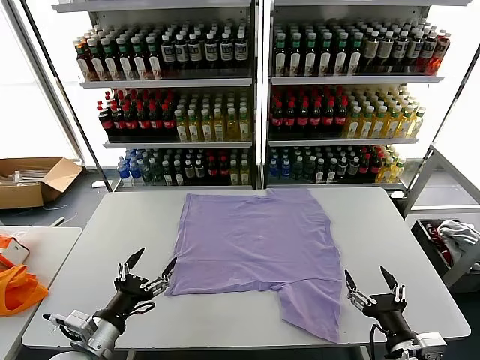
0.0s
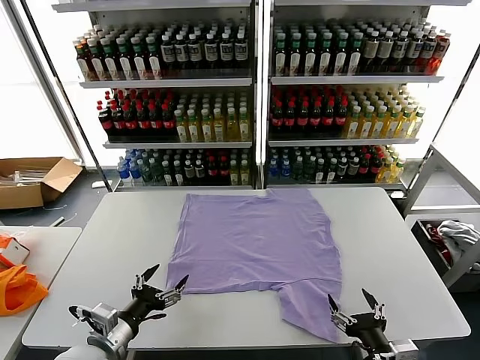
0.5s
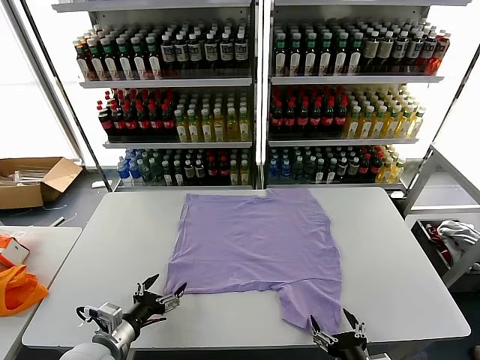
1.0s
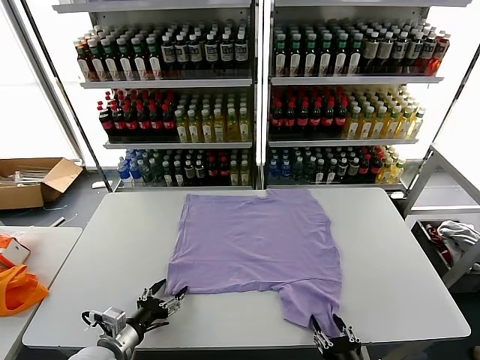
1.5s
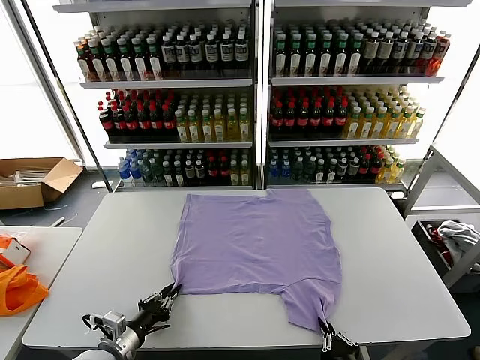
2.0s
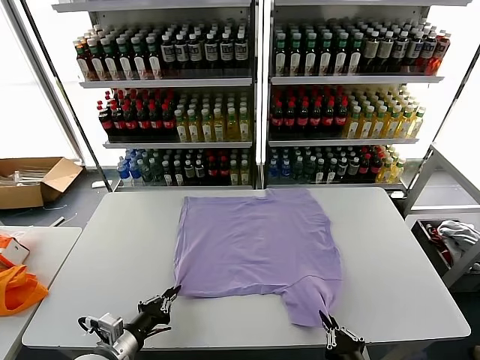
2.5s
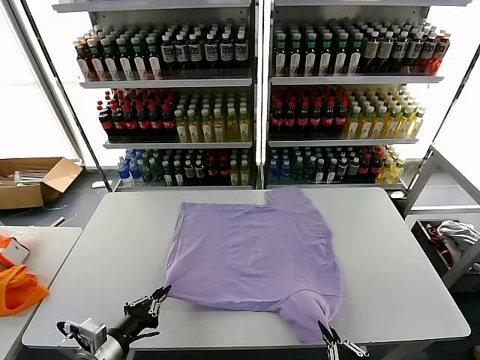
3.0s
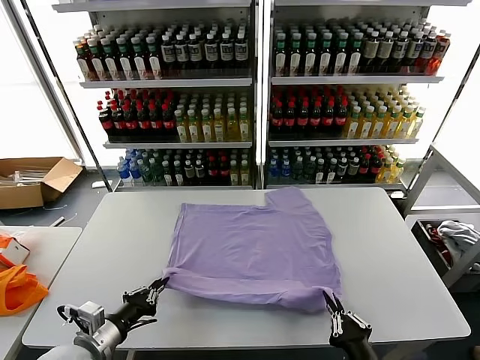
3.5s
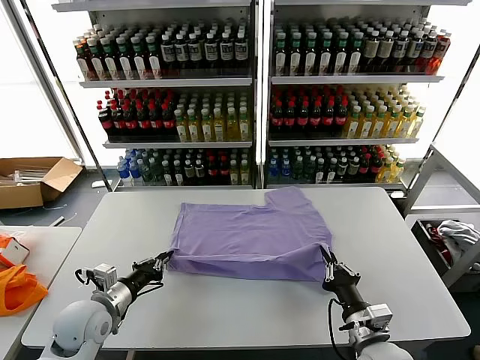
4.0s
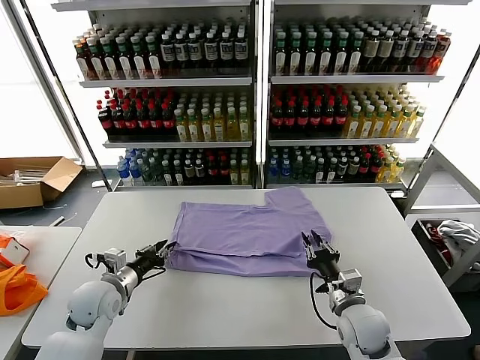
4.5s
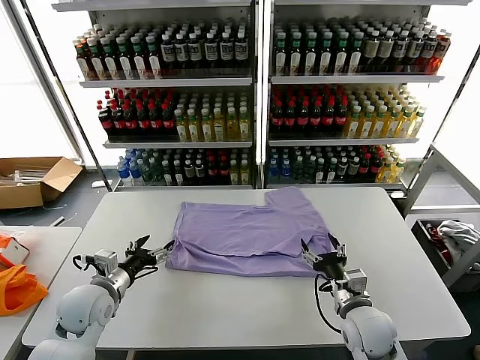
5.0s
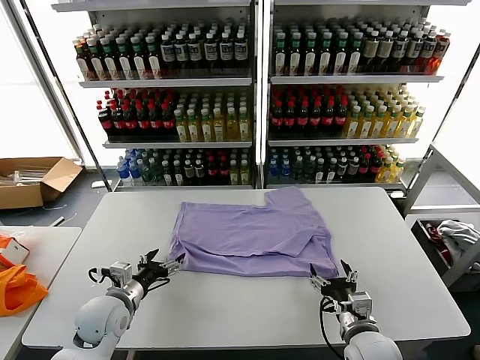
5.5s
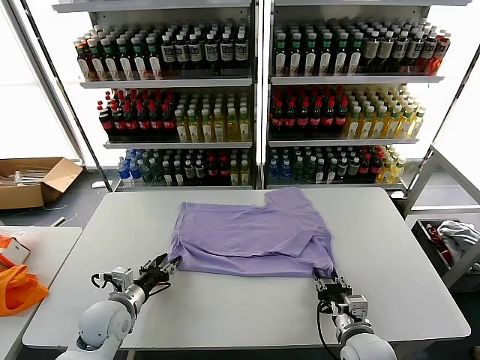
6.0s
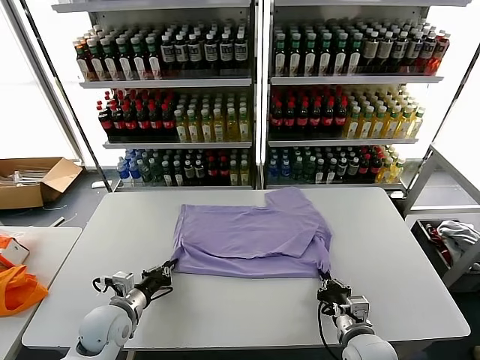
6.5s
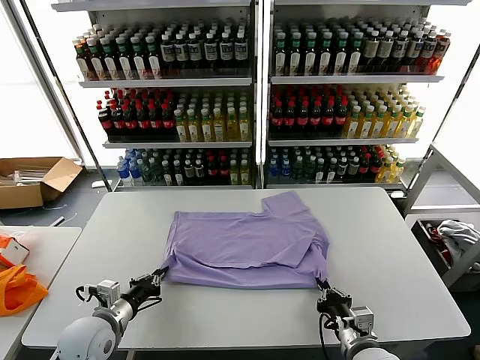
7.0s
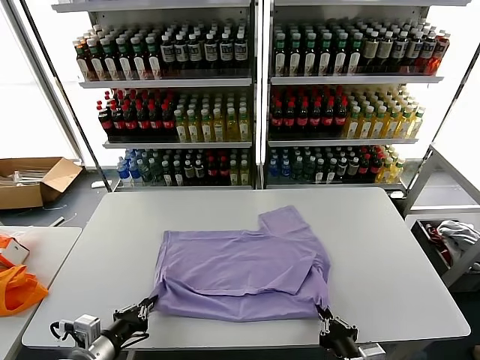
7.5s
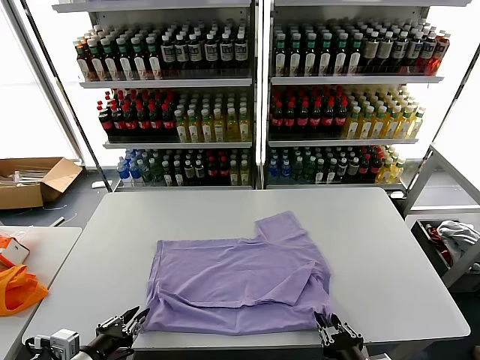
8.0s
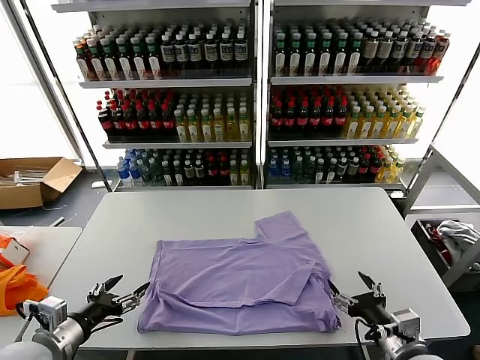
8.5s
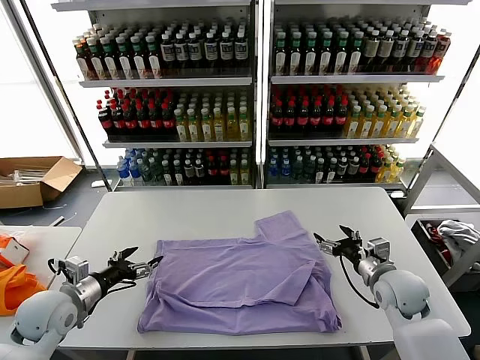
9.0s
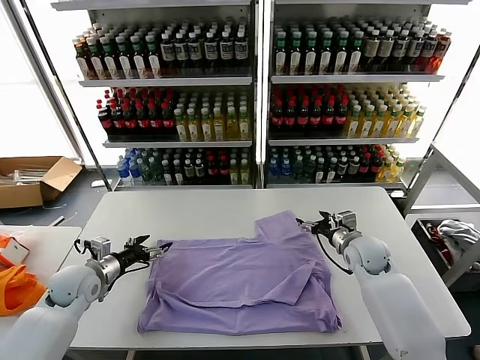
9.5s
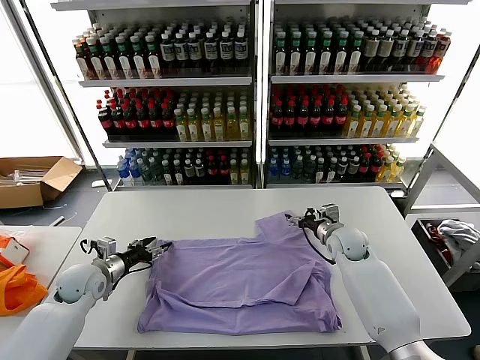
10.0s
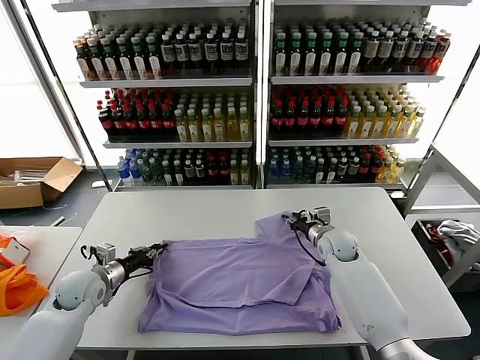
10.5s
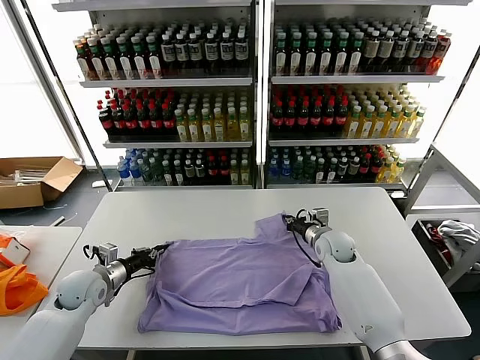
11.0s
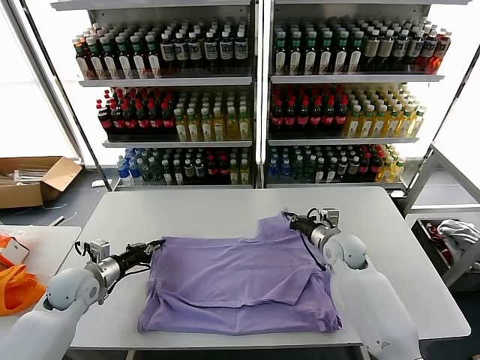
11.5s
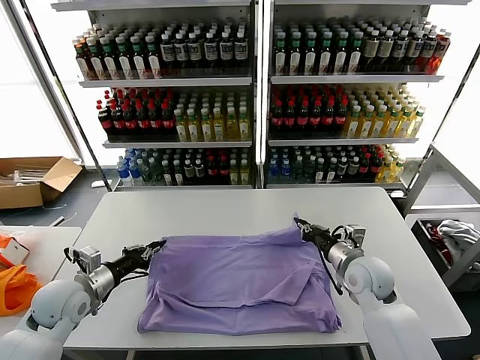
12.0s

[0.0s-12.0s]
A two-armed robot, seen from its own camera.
Task of the whole recording: fold and organize the clothes.
Step, 0.0s to 2.0s: use both grippers simultaneously to clamp the lower edge of the clothing fabric.
Step, 2.5s to 4.5s: use both grippers to drag the lower edge of the fabric forward and fold it over the upper edge.
Step, 5.0s to 8.0s: Drag the clothes downward with both gripper.
Step, 8.5s to 10.5s: use both grippers simultaneously to clamp the upper edge of the clothing fabric.
2.0s to 4.0s: The left gripper heads forward and upward, covering approximately 10 cm. The right gripper travels forward by about 15 cm.
4.0s to 6.0s: The right gripper opens and closes again; the left gripper moves roughly 5 cm, and opens.
6.0s to 8.0s: Both grippers travel together backward and upward, about 15 cm.
8.0s to 10.0s: The left gripper heads forward, covering approximately 25 cm, and opens; the right gripper is displaced forward by approximately 40 cm, and opens.
10.0s to 12.0s: The left gripper moves backward and upward, approximately 10 cm, and closes. The right gripper moves backward, approximately 15 cm, and closes its fingers.

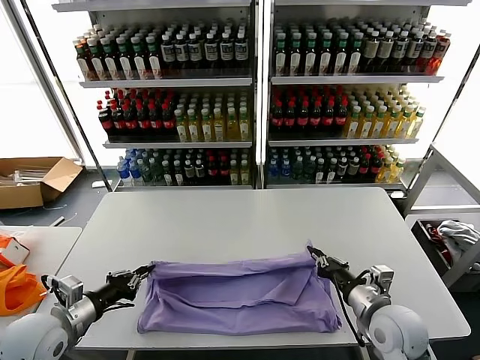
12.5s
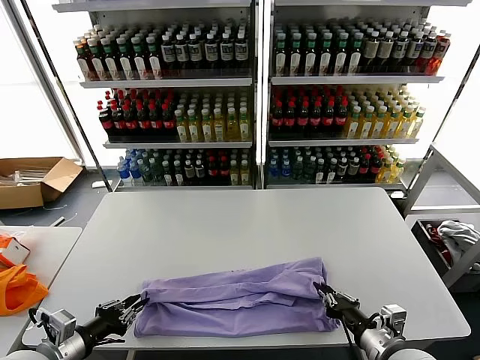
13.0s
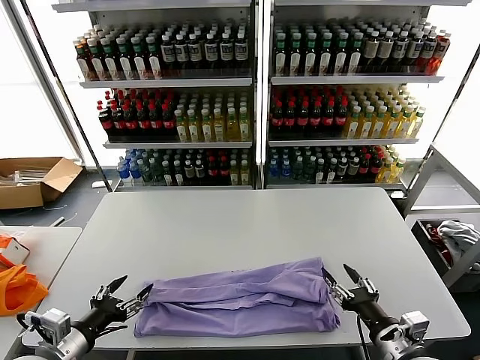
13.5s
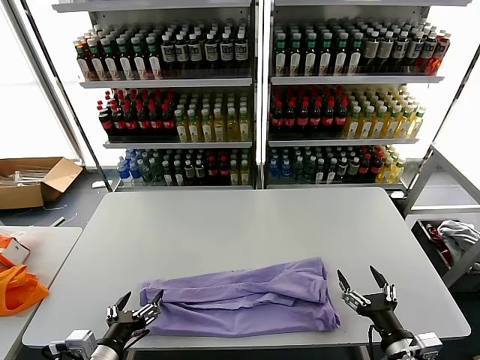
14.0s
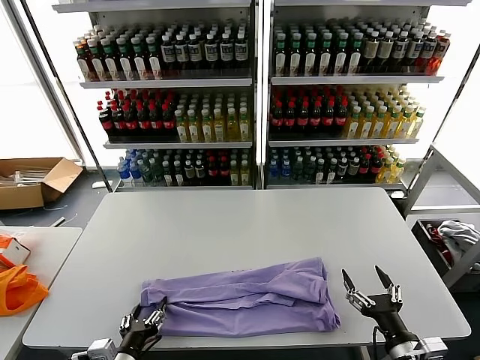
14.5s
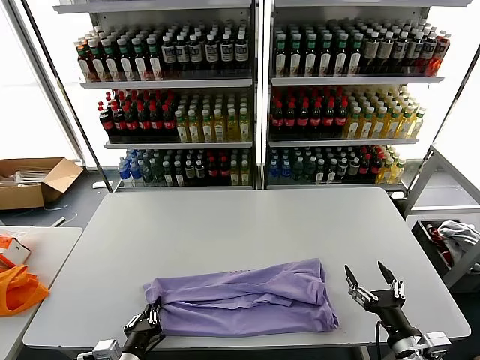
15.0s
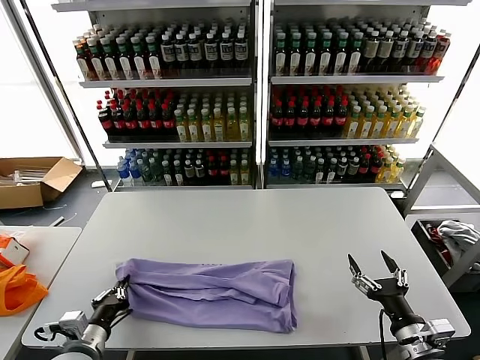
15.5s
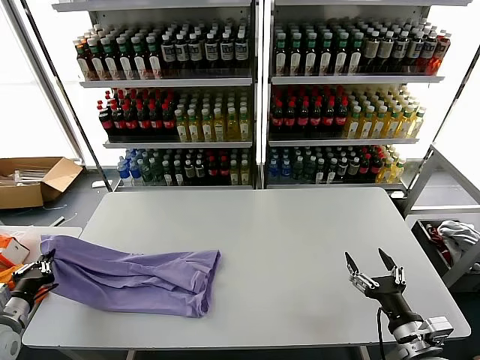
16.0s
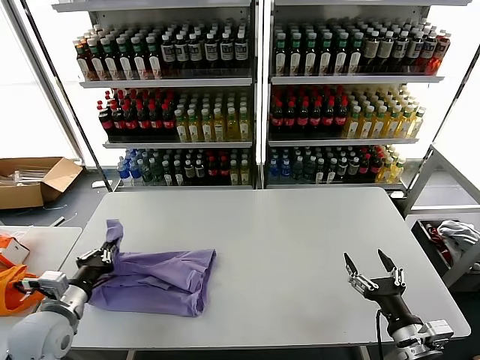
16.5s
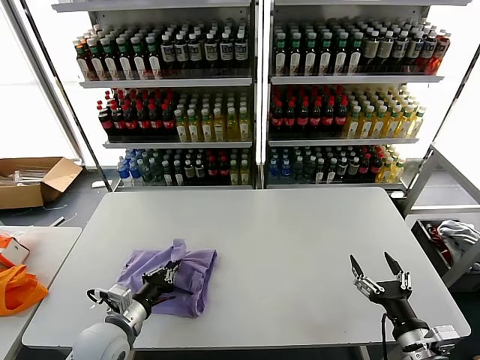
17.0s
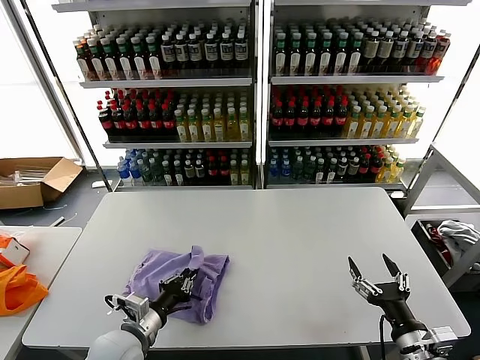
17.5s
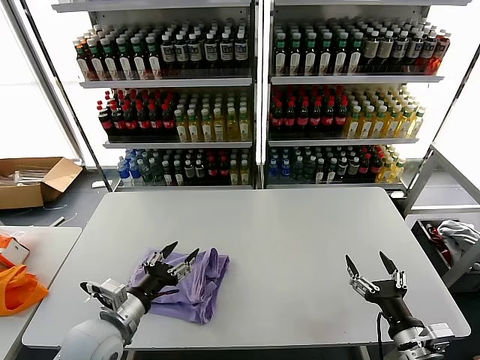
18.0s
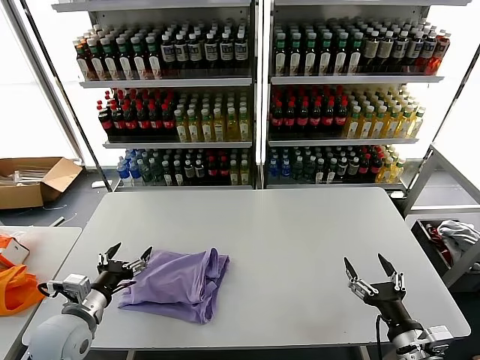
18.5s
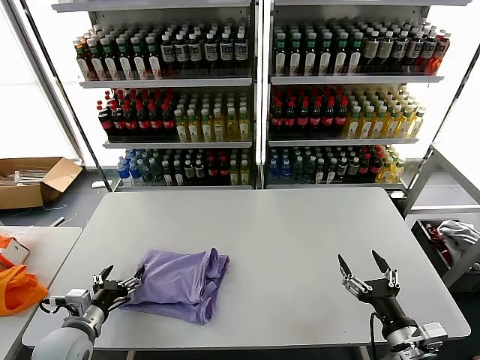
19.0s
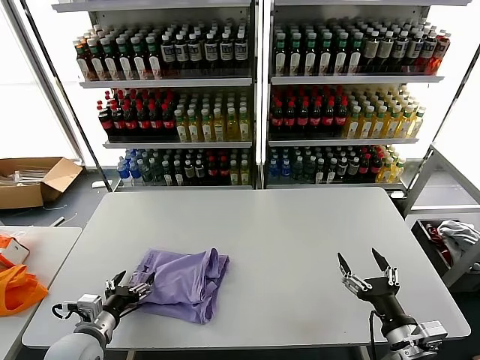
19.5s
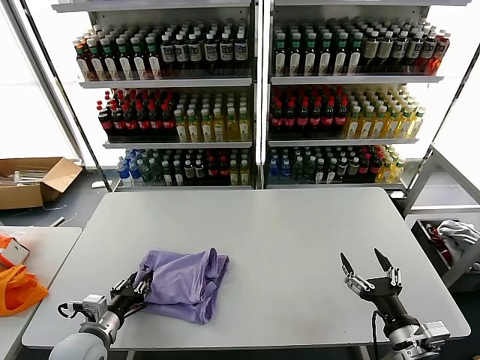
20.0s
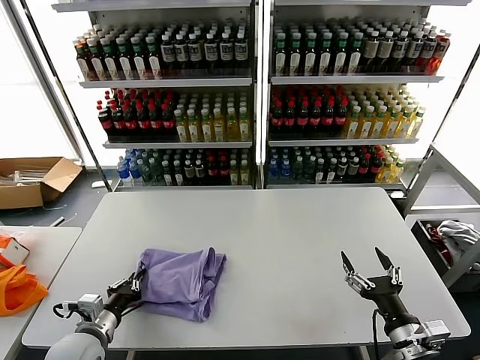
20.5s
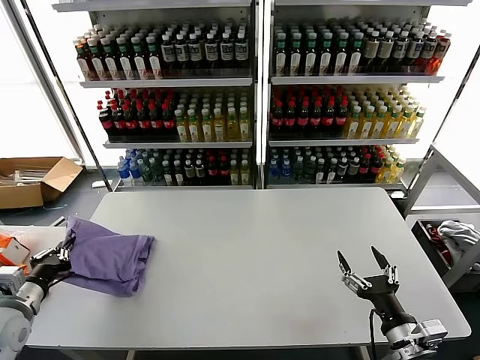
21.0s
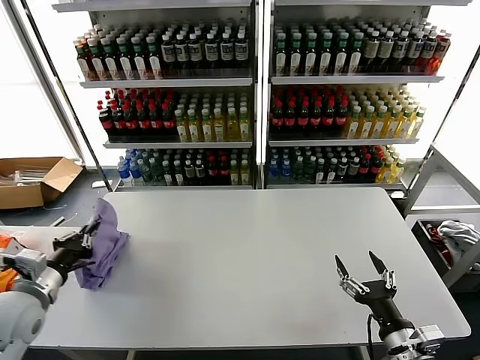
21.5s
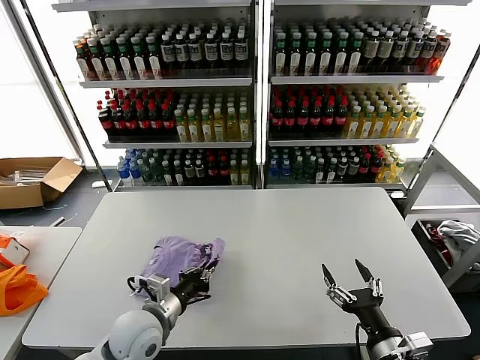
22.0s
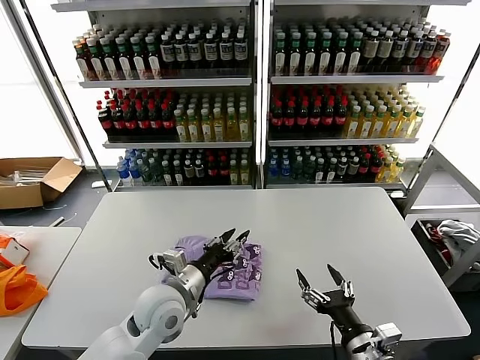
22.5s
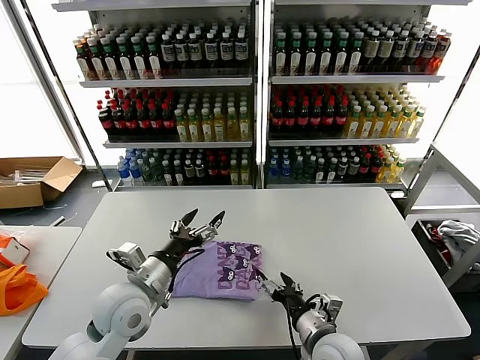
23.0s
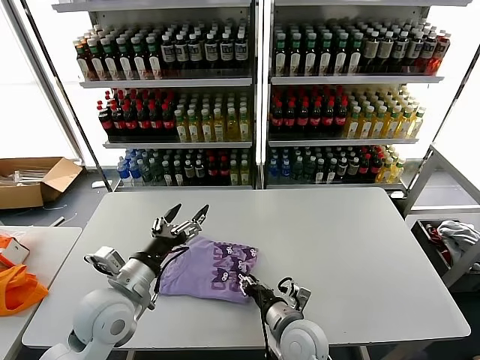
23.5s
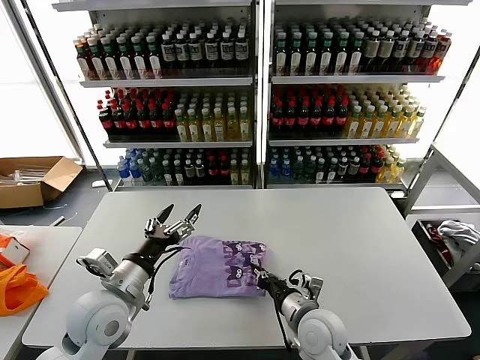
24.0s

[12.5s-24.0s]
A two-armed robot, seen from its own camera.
Task of the whole recording: fold and organize the clothes.
Step, 13.5s to 15.0s: use the left gripper to clamp the left edge of the fabric.
Step, 15.5s to 17.5s: use the left gripper to drag the left edge of the fabric to the left and folds it over the right edge.
Step, 18.0s to 22.0s: Flip the folded clothes over with left gripper.
12.5s to 14.5s: The left gripper heads to the right, backward and downward, covering about 15 cm, and opens up; the right gripper goes about 10 cm backward, and opens its fingers.
14.5s to 16.5s: The left gripper shifts about 20 cm to the left, forward and upward, and closes up.
16.5s to 18.5s: The left gripper goes to the right and returns, some 15 cm each way, and opens its fingers.
18.5s to 20.0s: The left gripper shifts approximately 5 cm downward, and closes up.
20.0s to 22.0s: The left gripper heads to the right, covering about 10 cm, and closes up.
22.0s to 24.0s: The right gripper shifts some 20 cm to the left and forward, and closes its fingers, while the left gripper moves upward, about 10 cm, and opens up.

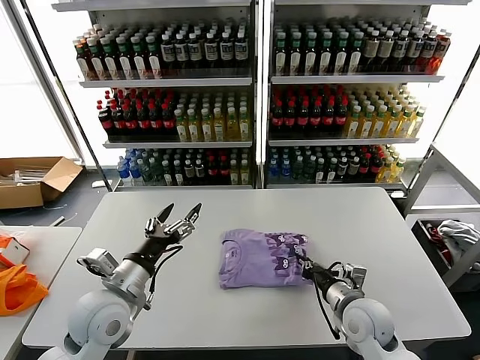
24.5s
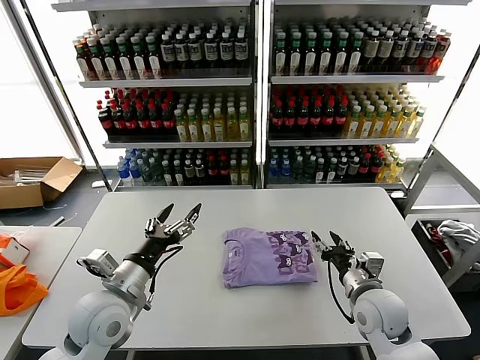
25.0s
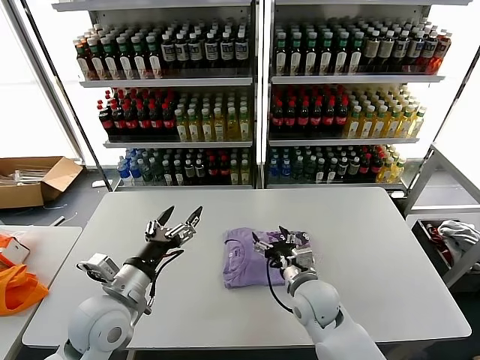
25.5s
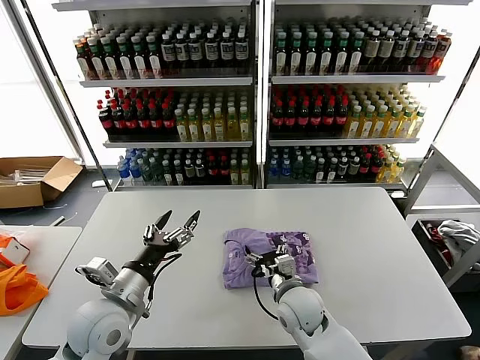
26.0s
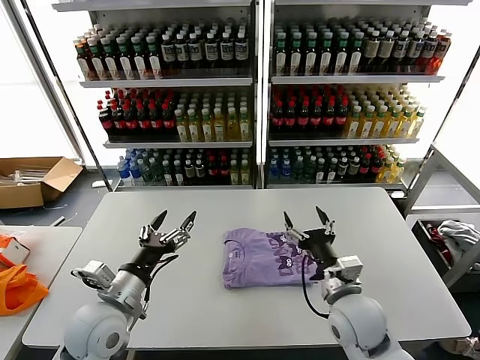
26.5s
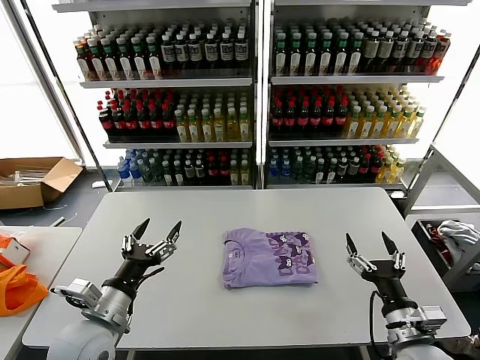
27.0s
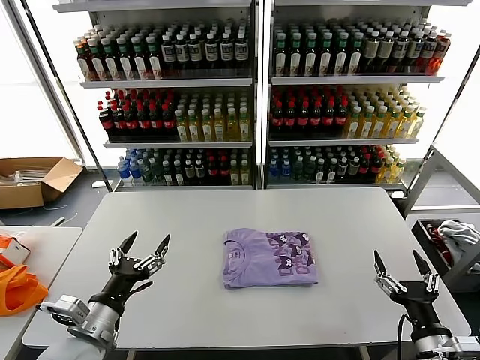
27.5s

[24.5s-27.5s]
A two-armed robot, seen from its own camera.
Task of the whole recording: fold and organize the clothes.
24.5s to 26.0s: The right gripper travels to the left by about 15 cm, and opens up.
26.0s to 27.5s: The right gripper travels to the right and backward by some 30 cm. The left gripper heads backward, covering approximately 5 cm.
